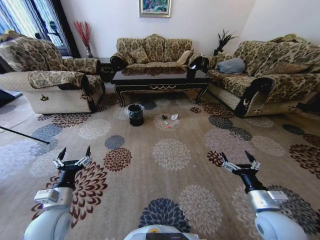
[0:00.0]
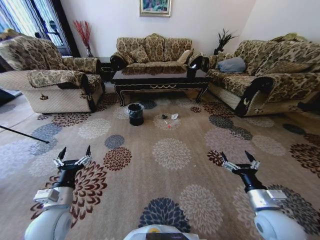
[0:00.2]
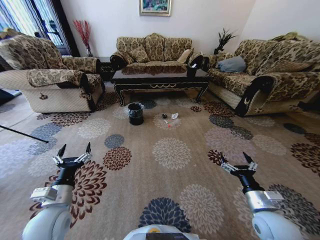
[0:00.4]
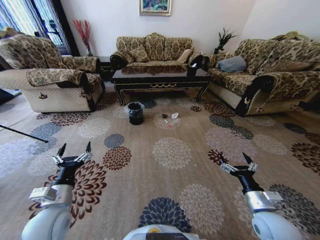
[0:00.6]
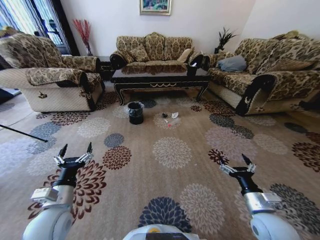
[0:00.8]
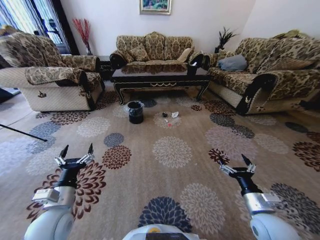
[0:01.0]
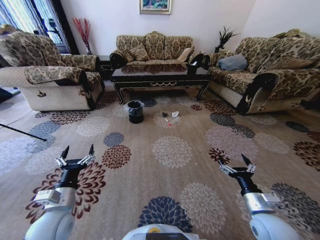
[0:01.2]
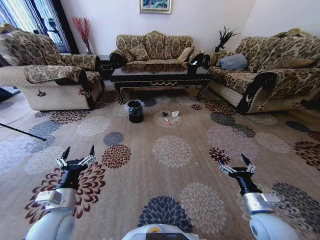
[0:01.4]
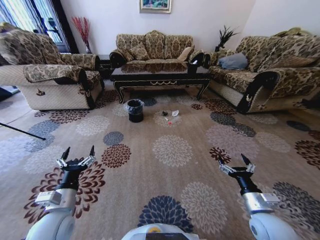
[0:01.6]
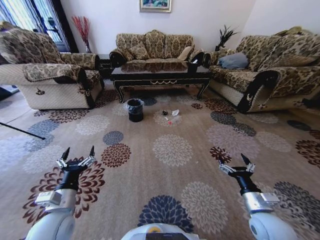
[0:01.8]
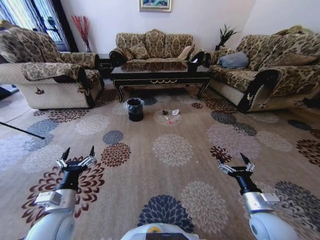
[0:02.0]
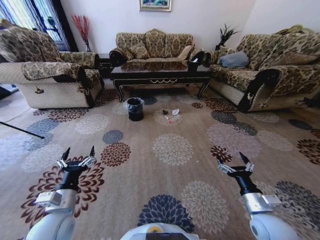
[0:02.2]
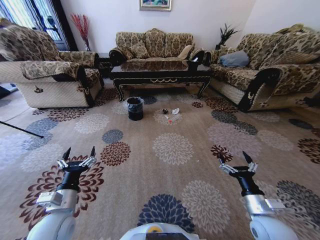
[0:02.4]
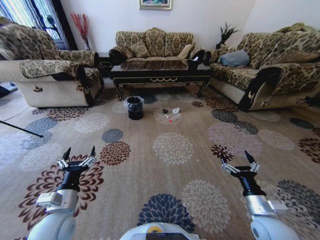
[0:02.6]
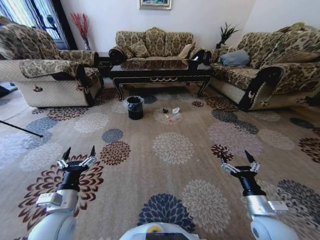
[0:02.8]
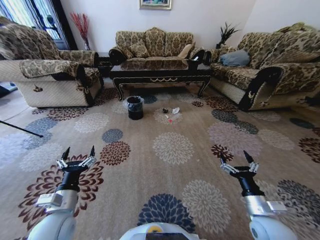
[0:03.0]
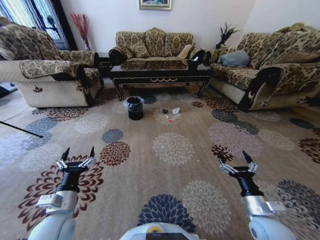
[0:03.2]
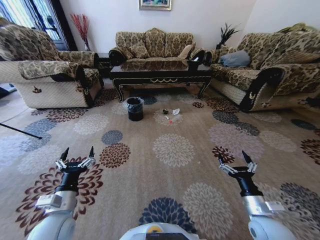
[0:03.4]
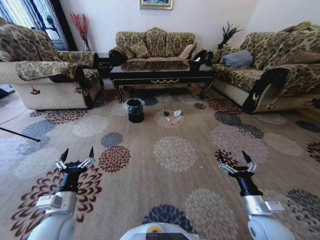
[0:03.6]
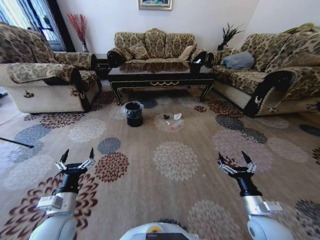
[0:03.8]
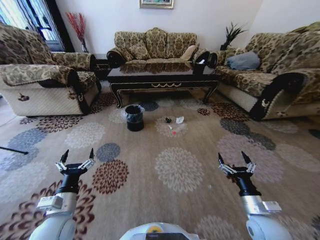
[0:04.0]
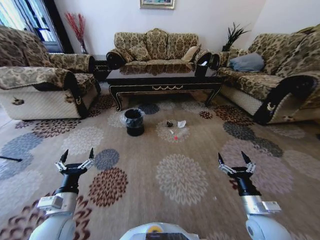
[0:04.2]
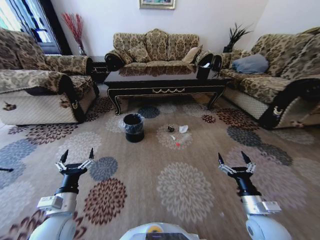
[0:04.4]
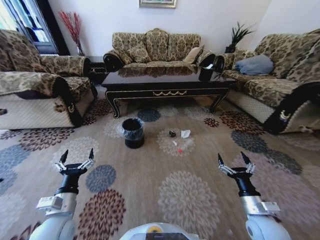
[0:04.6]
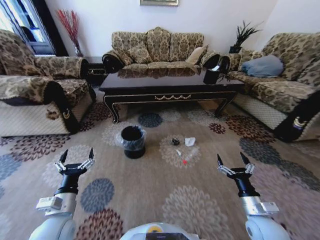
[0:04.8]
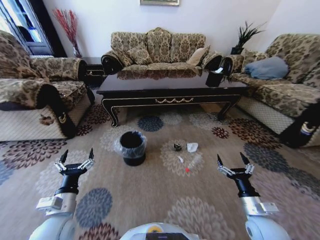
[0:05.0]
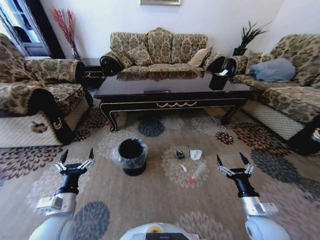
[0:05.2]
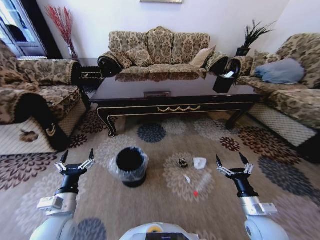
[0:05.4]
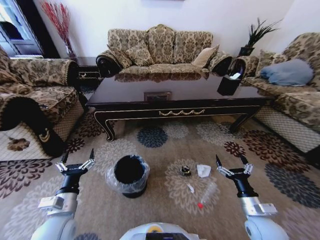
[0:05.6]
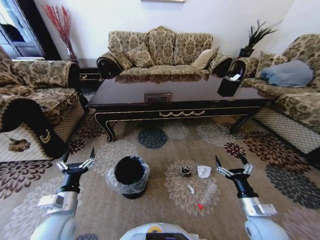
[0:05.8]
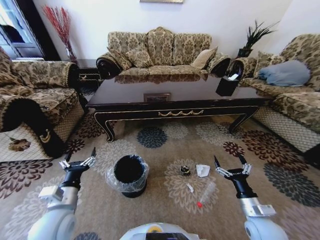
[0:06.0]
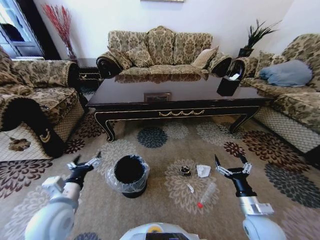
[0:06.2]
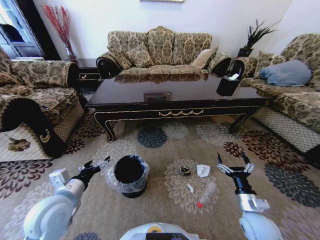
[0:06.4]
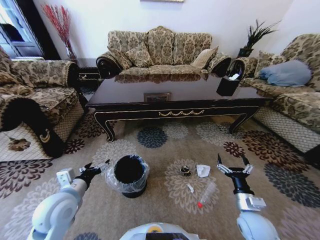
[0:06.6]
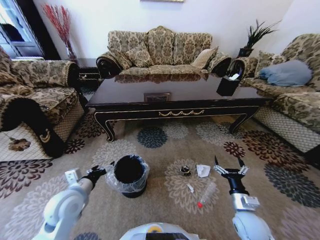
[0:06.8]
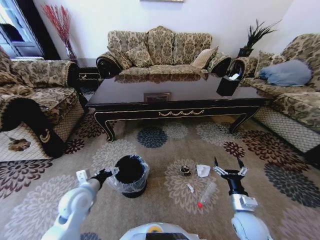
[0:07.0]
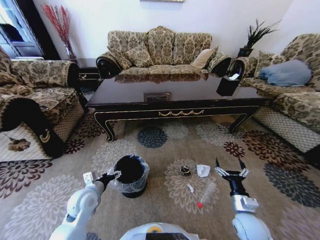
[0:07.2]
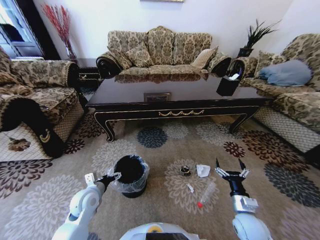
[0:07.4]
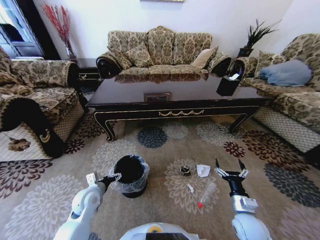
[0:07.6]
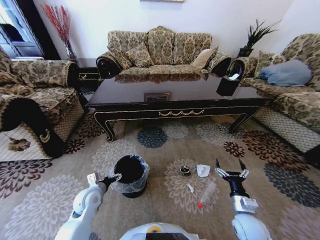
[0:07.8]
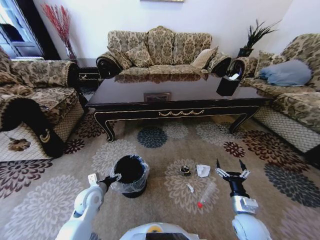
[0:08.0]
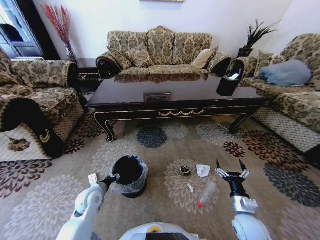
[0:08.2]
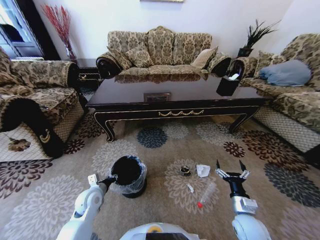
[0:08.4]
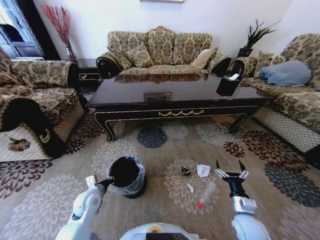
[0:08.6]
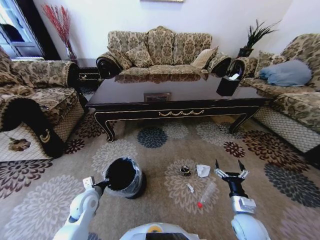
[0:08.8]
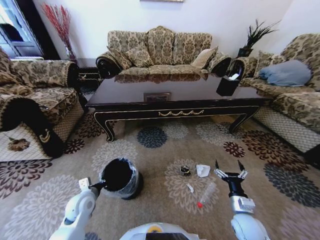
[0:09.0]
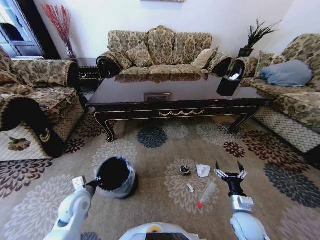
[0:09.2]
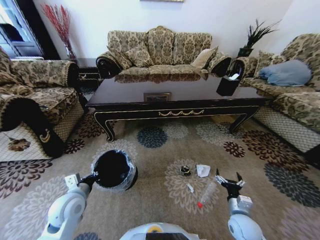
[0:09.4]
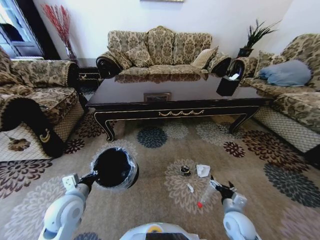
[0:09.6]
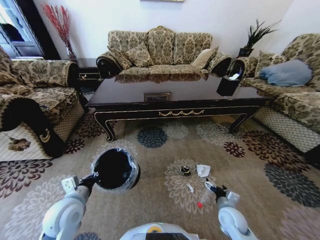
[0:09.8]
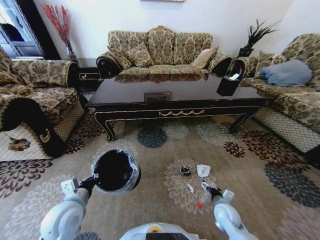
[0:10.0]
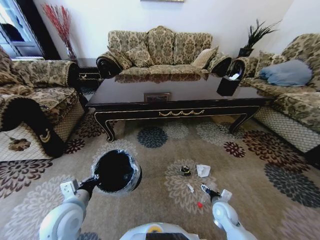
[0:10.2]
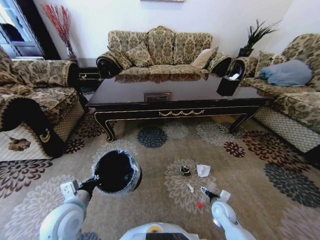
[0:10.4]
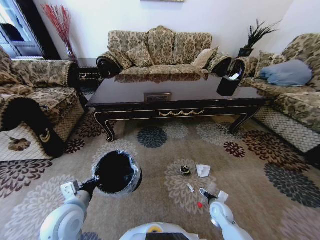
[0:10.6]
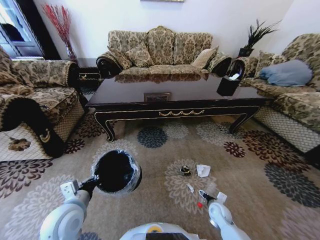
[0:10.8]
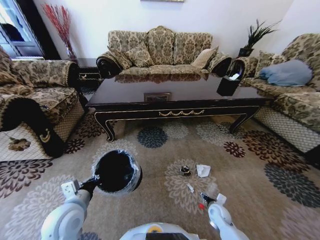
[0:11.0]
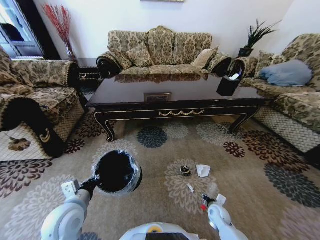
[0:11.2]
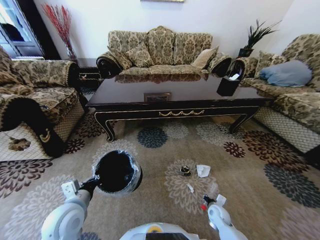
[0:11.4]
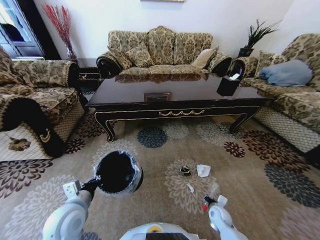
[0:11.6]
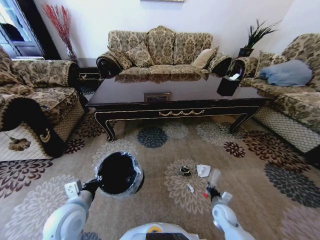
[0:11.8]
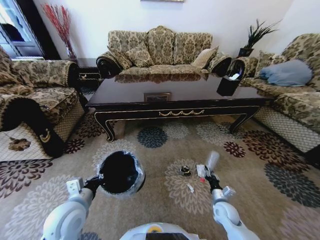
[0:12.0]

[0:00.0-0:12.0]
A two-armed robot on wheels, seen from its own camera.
Task of the whole recording: Move to the front of the table and pick up the trash from the floor, then place it into the trash bin.
0:06.0 to 0:07.6: The left gripper heads forward and downward, covering some 10 cm.
0:07.6 to 0:09.0: The left gripper closes.
0:09.0 to 0:10.4: The right gripper travels downward and forward by some 10 cm; the left gripper goes some 10 cm upward and backward.
0:10.4 to 0:12.0: The right gripper closes its fingers.

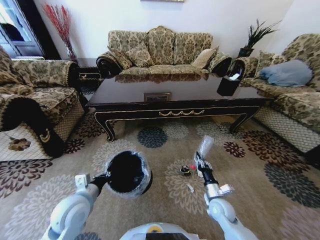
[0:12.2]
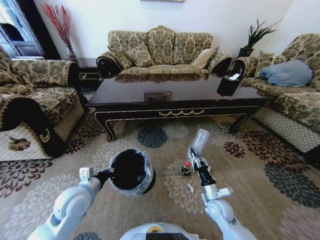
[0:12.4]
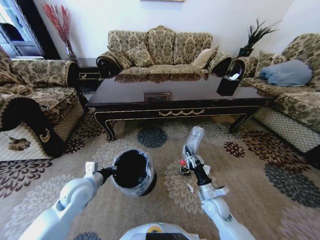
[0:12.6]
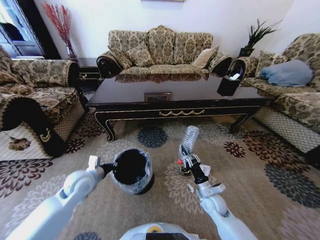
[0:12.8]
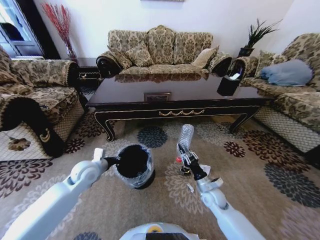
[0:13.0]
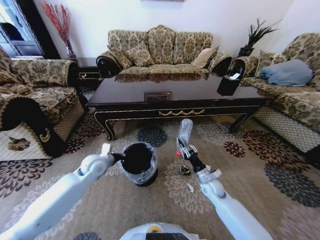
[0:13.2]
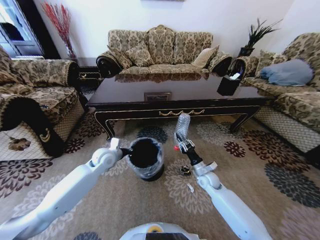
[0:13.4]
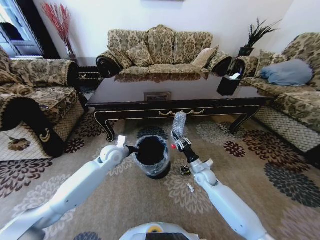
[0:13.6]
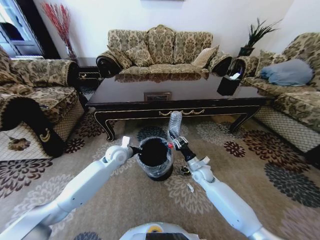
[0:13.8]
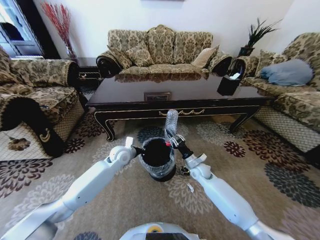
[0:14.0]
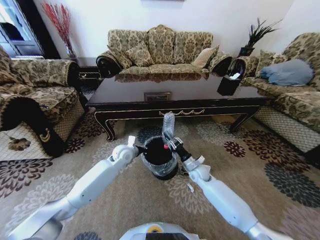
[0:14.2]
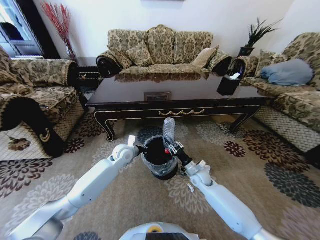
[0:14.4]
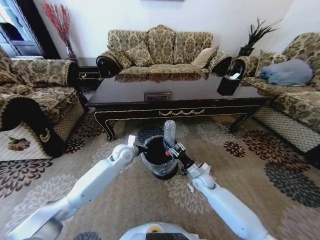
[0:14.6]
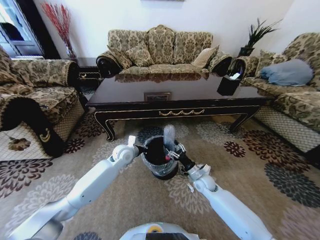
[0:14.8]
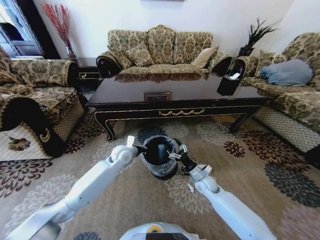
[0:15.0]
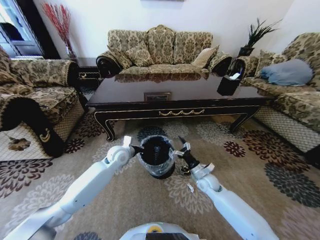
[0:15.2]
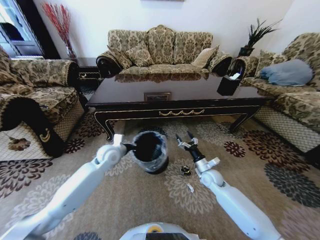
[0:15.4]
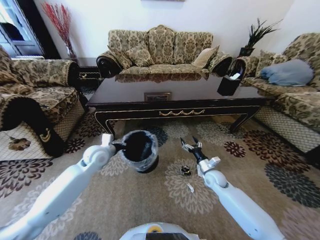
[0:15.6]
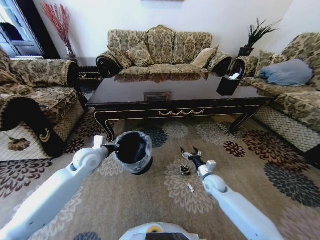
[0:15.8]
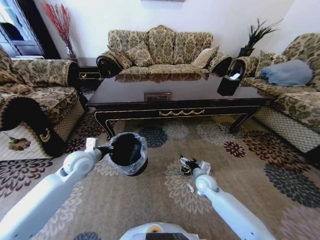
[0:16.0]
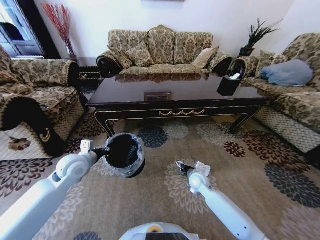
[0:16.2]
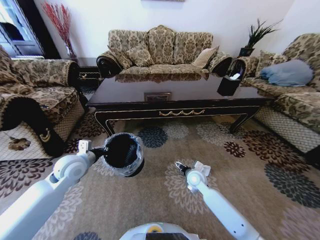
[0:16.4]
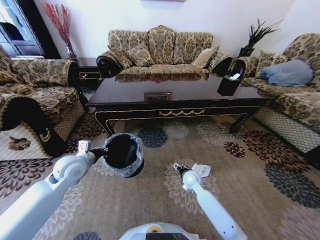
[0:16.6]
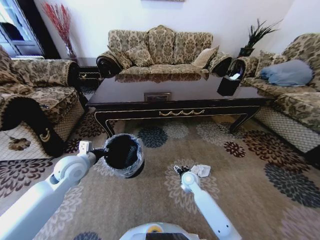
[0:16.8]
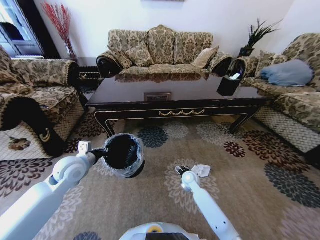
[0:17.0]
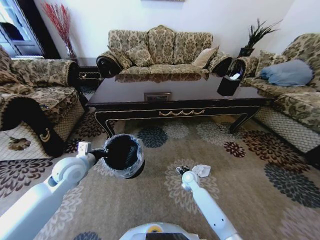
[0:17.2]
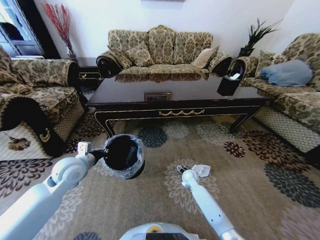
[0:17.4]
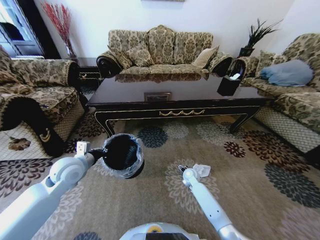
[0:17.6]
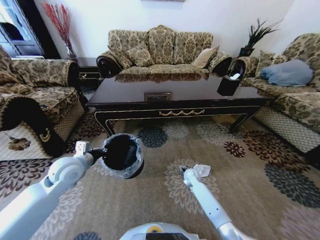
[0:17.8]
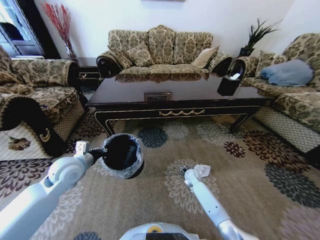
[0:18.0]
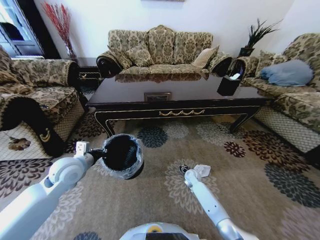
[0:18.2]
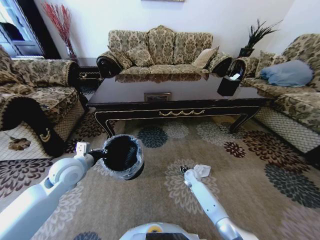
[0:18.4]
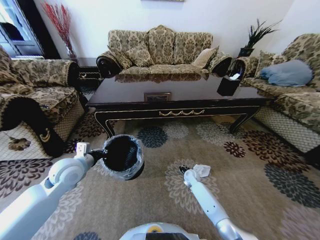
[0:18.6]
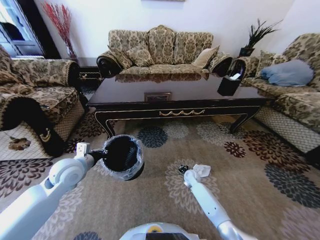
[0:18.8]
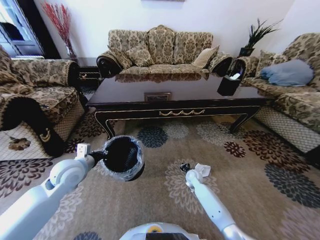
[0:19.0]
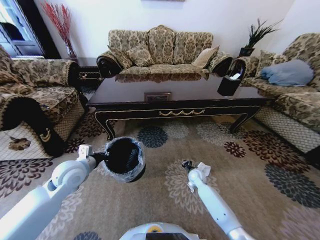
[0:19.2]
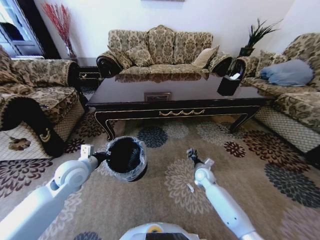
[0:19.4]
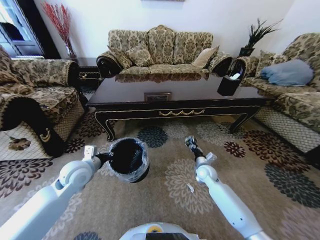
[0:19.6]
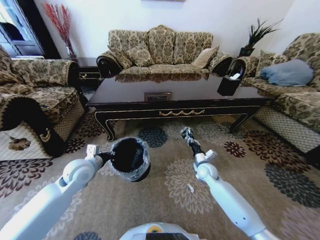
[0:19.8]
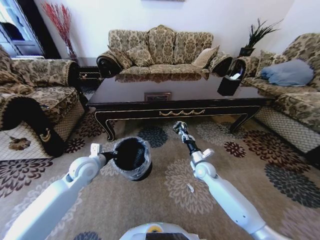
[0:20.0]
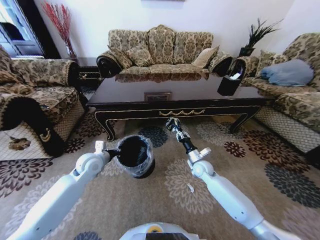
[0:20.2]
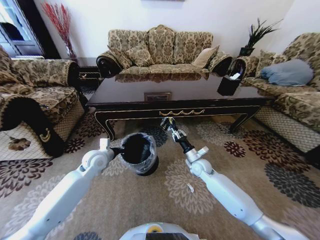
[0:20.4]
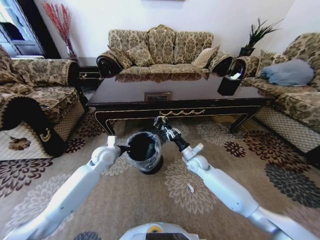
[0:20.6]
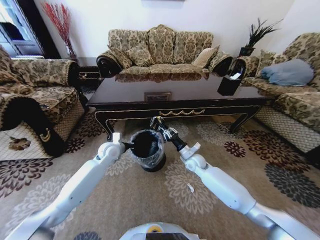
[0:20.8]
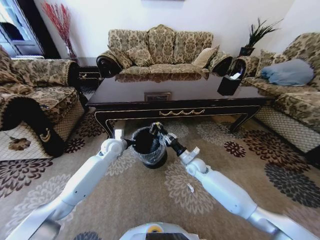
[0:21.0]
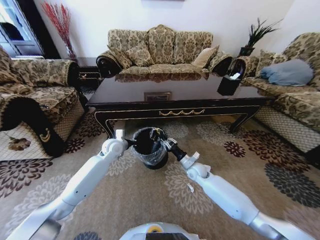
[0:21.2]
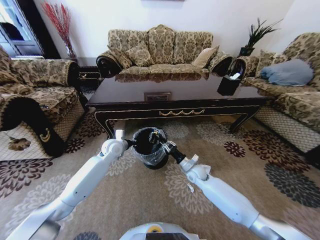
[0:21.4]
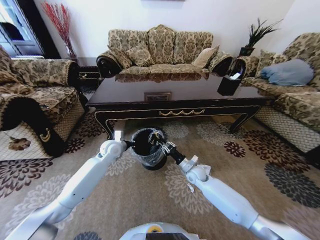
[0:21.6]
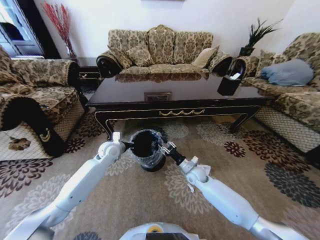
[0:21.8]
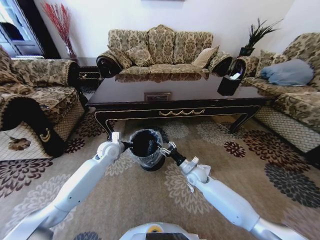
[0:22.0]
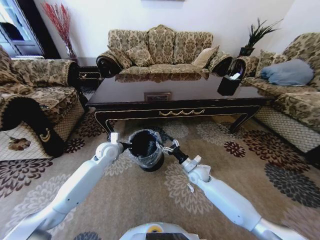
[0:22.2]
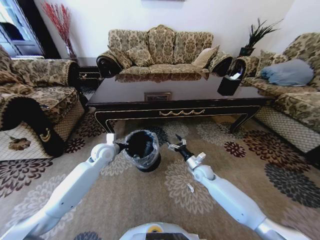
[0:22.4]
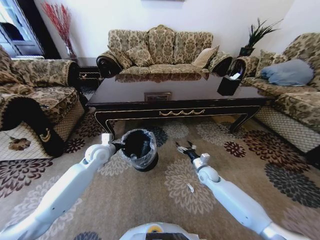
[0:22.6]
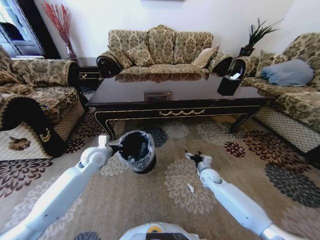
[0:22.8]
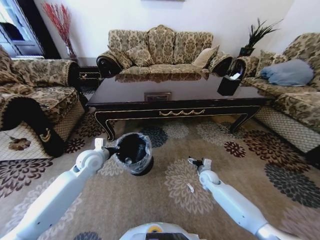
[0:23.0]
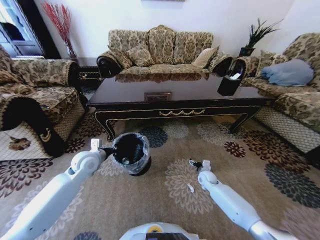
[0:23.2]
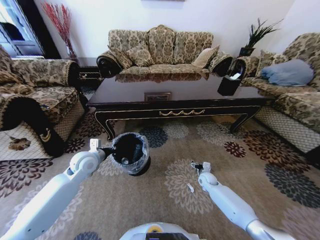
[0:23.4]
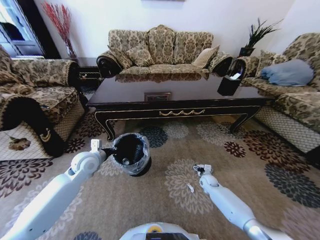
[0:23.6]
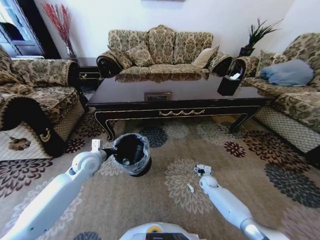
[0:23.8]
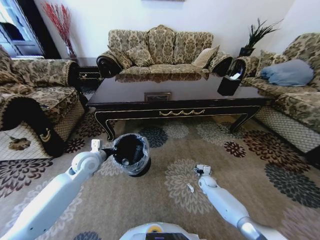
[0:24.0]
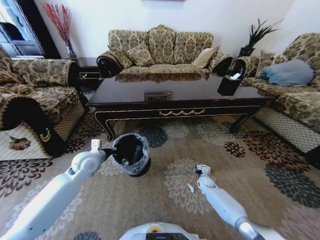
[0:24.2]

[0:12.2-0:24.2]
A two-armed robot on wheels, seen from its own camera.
Task of the whole recording: Move to the front of the table and pick up the trash from the floor, then place it into the trash bin.
0:12.2 to 0:13.8: The grippers both shift forward by approximately 20 cm.
0:13.8 to 0:15.2: The right gripper opens up.
0:15.2 to 0:16.6: The left gripper shifts some 20 cm to the left, backward and upward. The right gripper is displaced to the left by roughly 10 cm.
0:16.6 to 0:18.2: The right gripper heads downward and forward, covering roughly 10 cm.
0:18.2 to 0:19.8: The right gripper goes about 10 cm upward, and closes its fingers.
0:19.8 to 0:21.2: The left gripper moves forward and to the right, some 15 cm.
0:21.2 to 0:22.6: The left gripper heads to the left, covering approximately 5 cm, while the right gripper goes roughly 5 cm to the right, and opens its fingers.
0:22.6 to 0:24.2: The right gripper shifts about 15 cm downward, while the left gripper moves approximately 5 cm.
